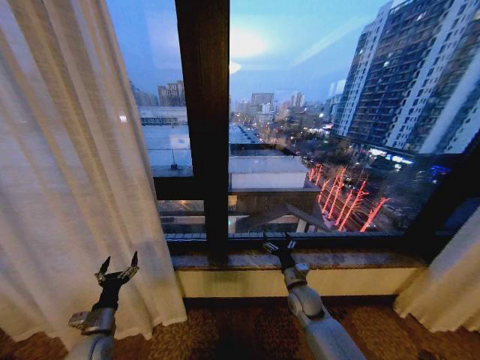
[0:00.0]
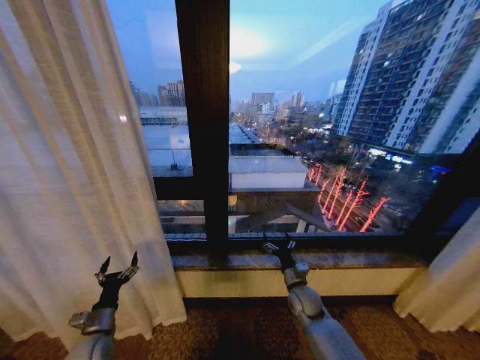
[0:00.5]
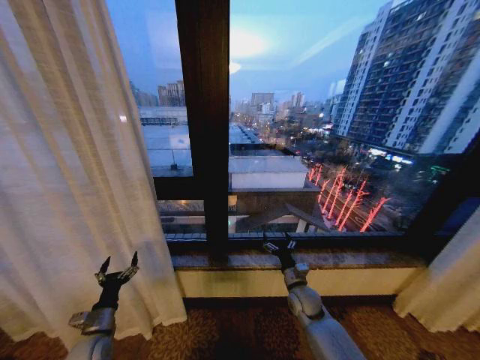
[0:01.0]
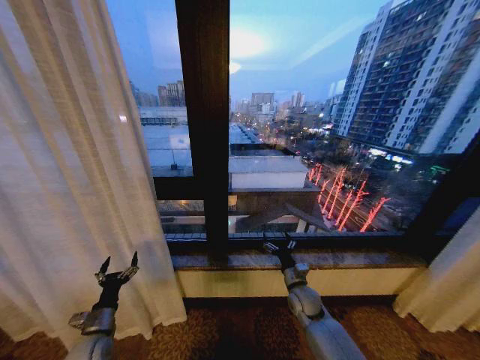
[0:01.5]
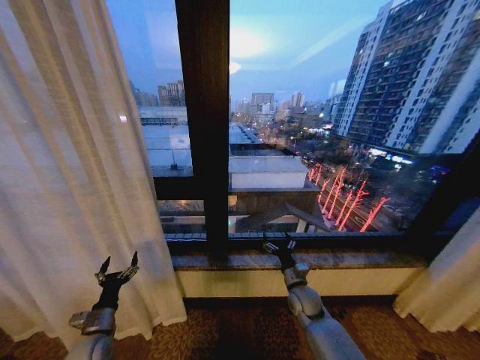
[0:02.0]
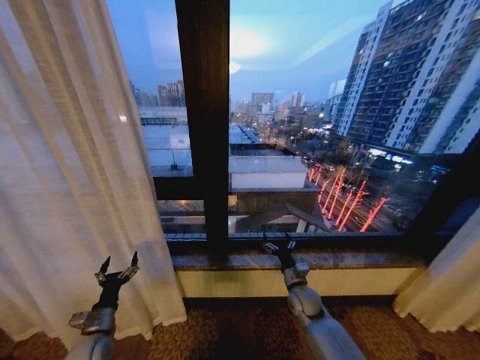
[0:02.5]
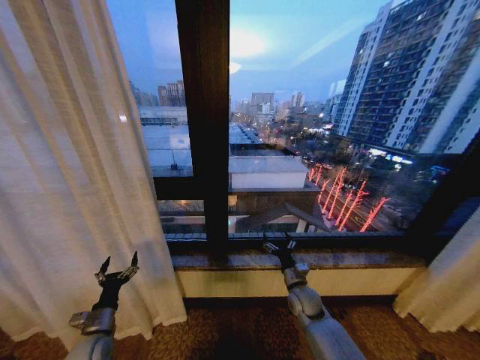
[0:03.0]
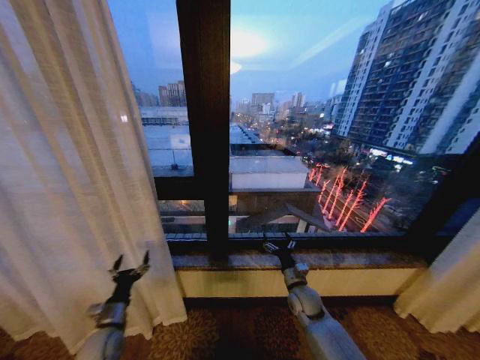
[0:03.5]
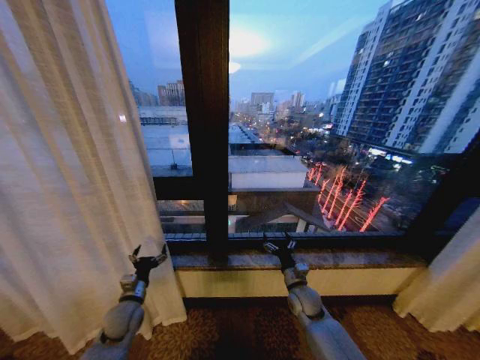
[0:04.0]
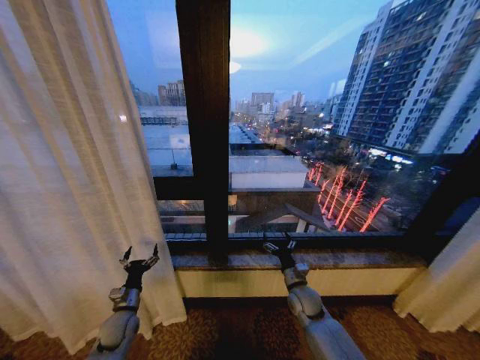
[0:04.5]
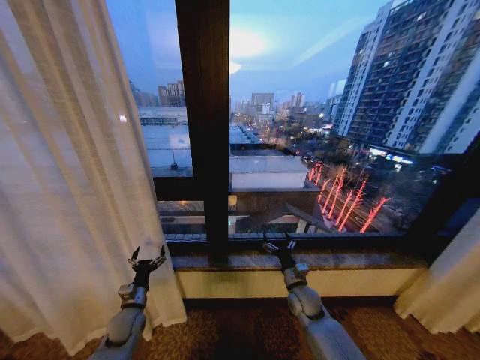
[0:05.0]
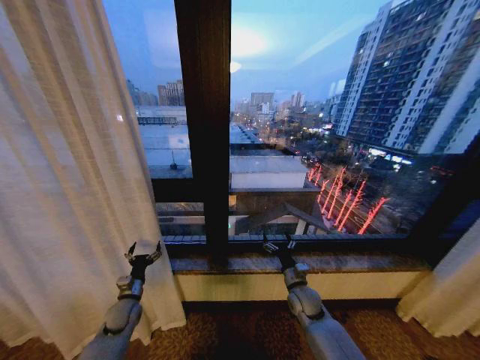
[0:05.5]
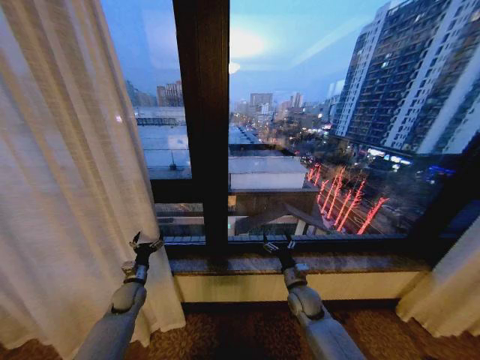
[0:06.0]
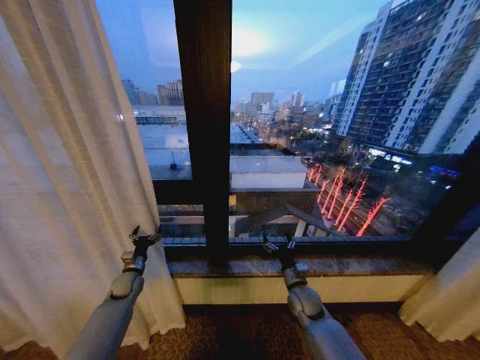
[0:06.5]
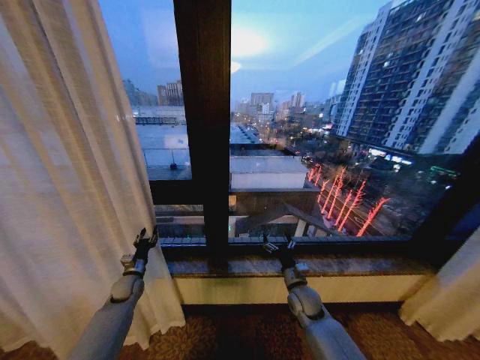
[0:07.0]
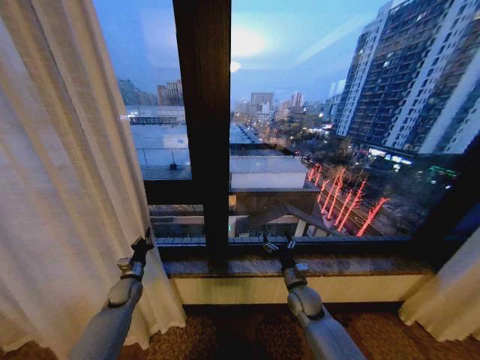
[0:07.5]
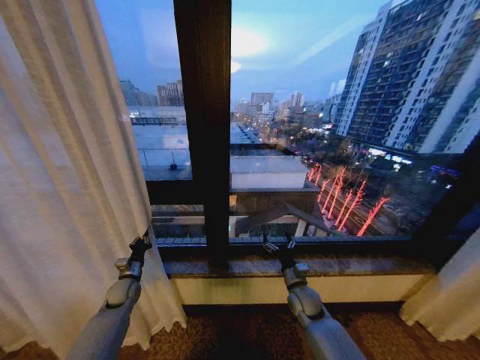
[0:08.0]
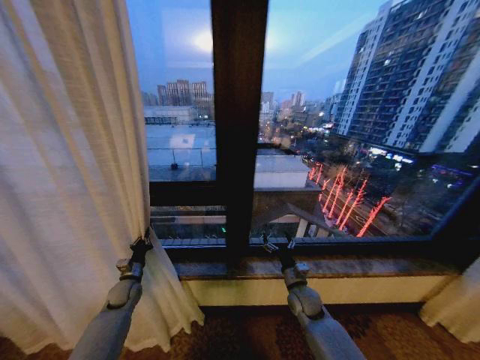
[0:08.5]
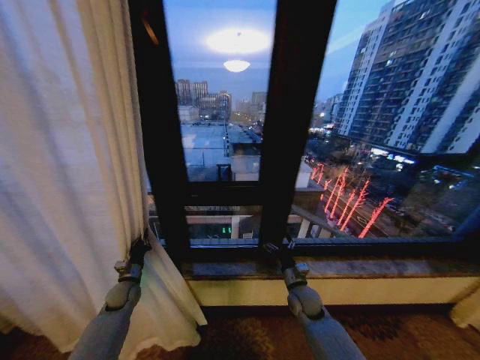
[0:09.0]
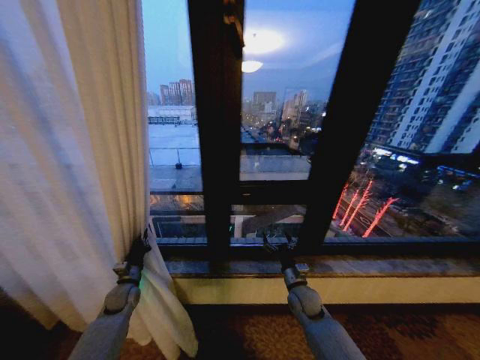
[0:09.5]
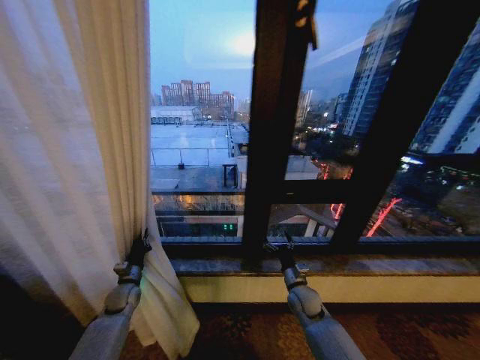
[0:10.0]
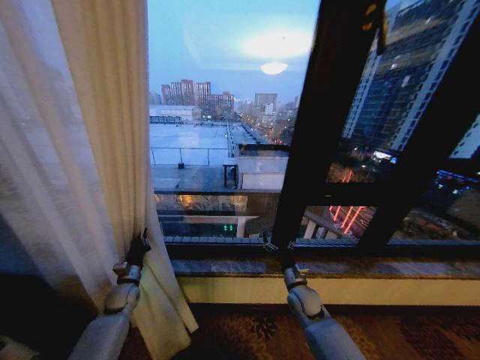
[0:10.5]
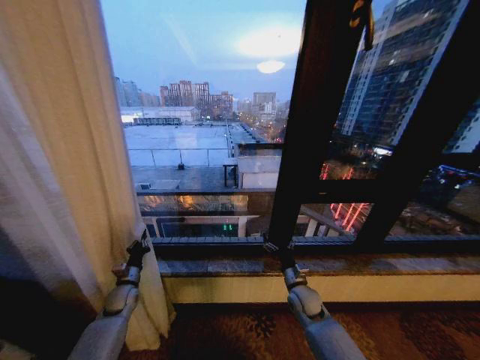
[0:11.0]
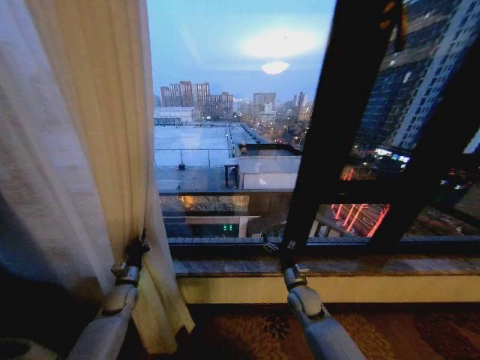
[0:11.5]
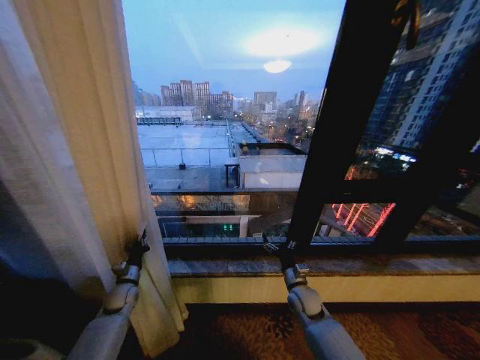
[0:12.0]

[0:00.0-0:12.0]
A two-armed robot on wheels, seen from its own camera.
Task of the whole recording: Open the curtains by pulling them apart, changing their state from closed to fully open.
0:00.0 to 0:02.0: Both grippers stay put.
0:02.0 to 0:04.0: The left gripper moves forward and to the right, roughly 10 cm.
0:04.0 to 0:06.0: The left gripper travels forward by approximately 10 cm.
0:06.0 to 0:08.0: The left gripper closes up.

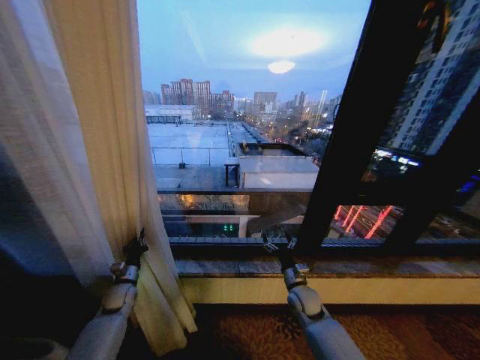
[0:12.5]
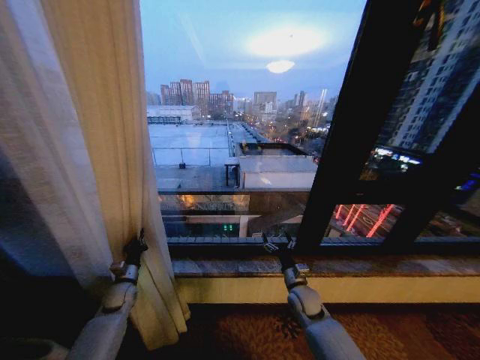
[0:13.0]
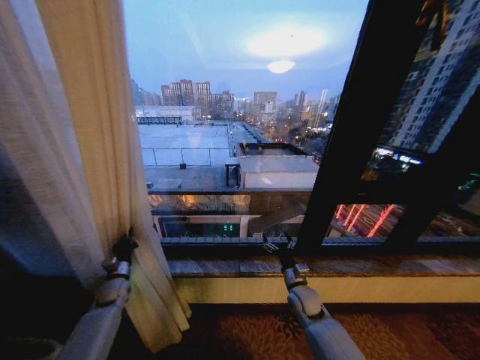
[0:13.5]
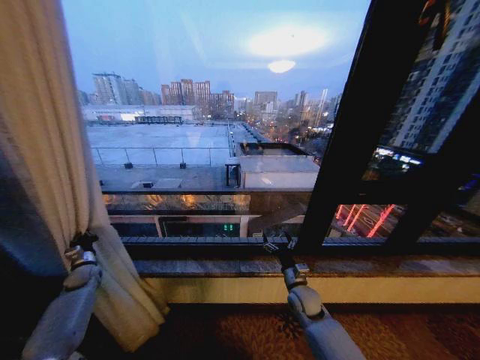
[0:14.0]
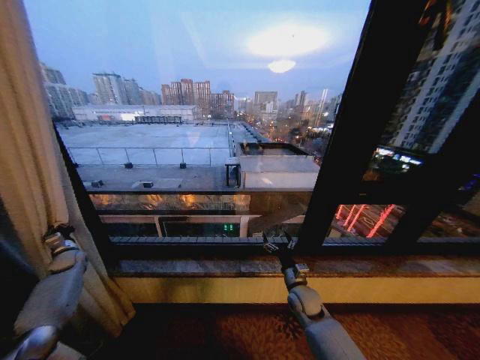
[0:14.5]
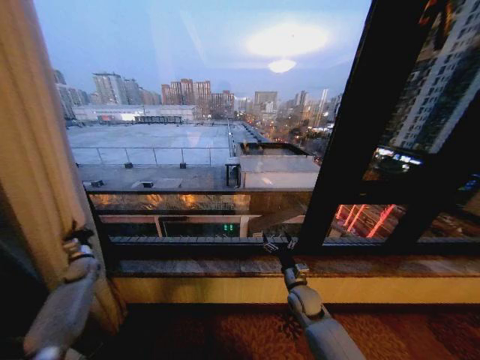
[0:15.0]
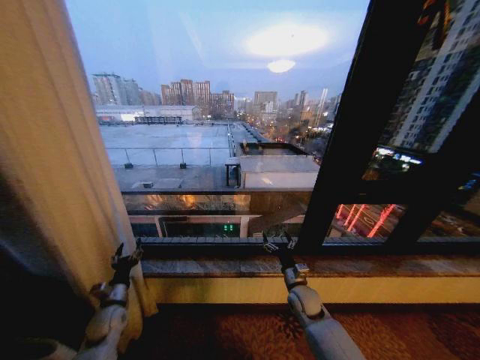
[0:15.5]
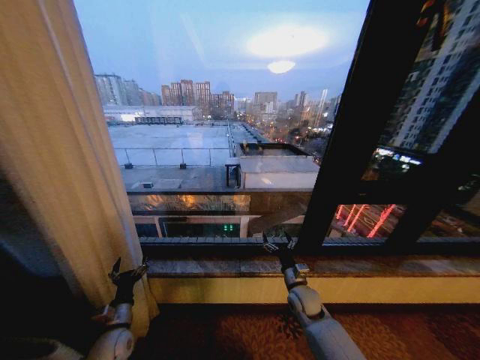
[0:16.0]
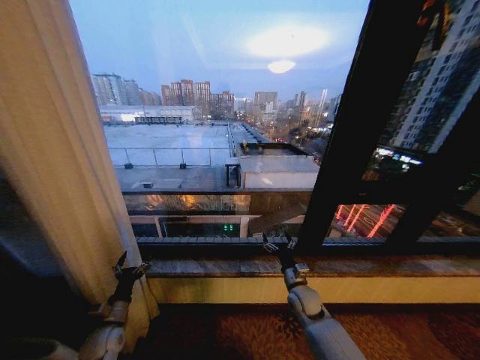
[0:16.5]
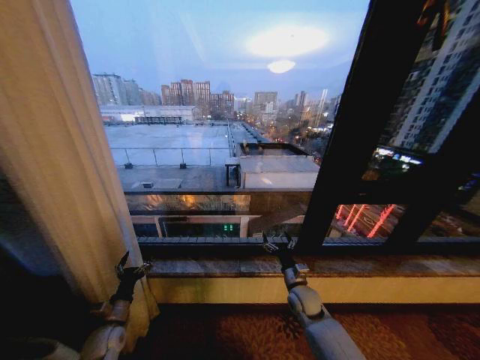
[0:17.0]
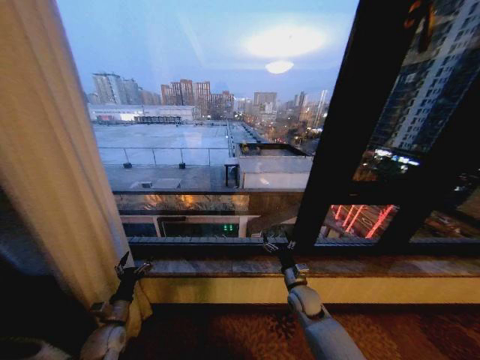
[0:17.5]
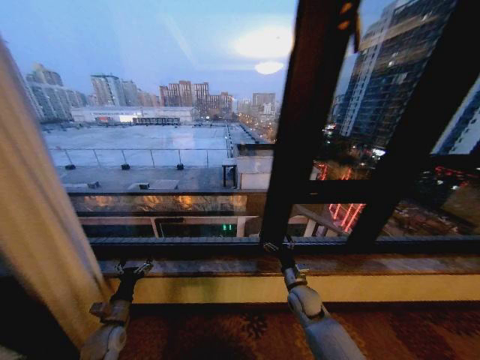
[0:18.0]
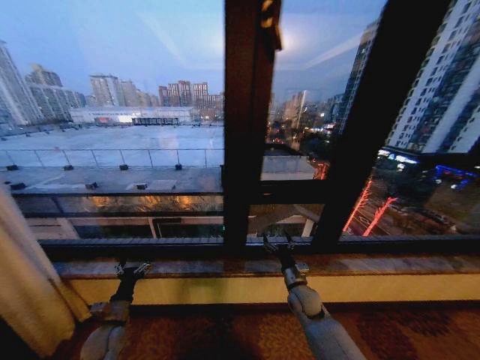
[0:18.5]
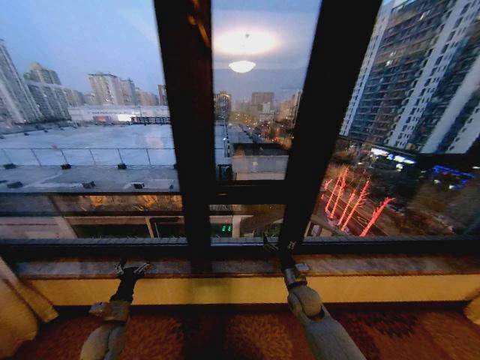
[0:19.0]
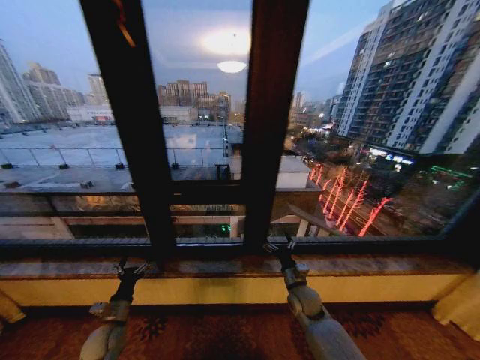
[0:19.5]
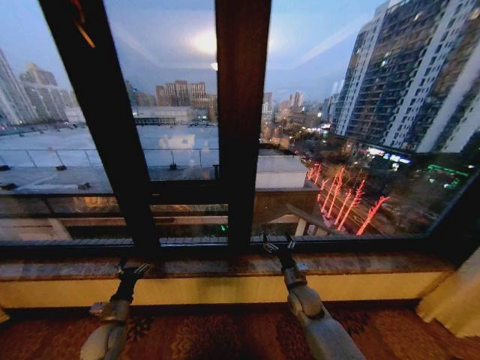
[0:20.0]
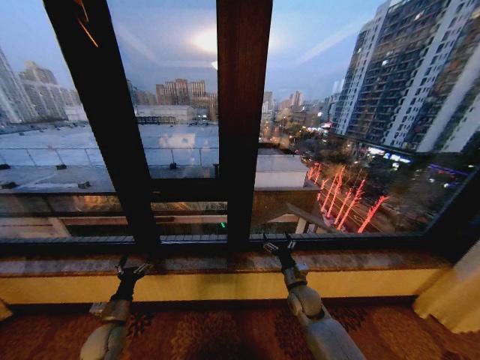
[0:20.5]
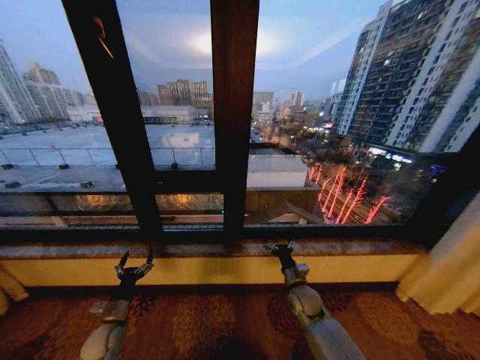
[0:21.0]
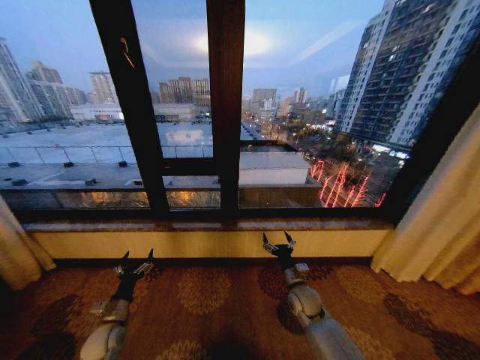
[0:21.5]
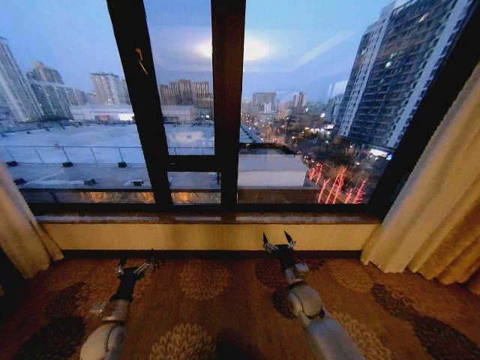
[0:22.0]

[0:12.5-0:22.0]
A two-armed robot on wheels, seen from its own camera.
Task of the whole recording: Open the curtains by pulling them apart, changing their state from closed to fully open.
0:12.5 to 0:14.5: The left gripper goes approximately 20 cm to the left and forward.
0:14.5 to 0:16.5: The left gripper goes approximately 30 cm to the right, backward and downward, and opens its fingers.
